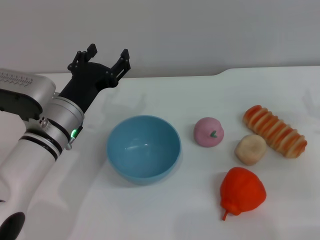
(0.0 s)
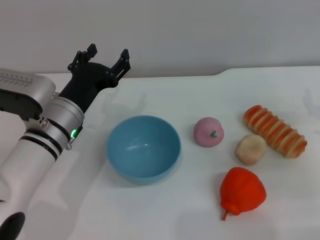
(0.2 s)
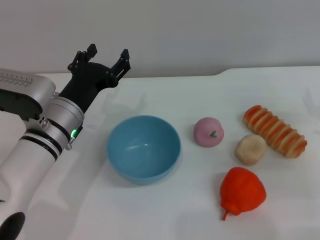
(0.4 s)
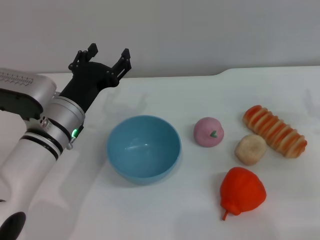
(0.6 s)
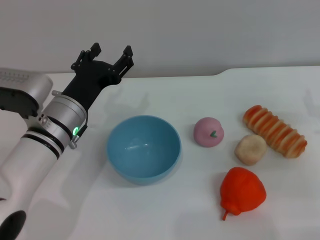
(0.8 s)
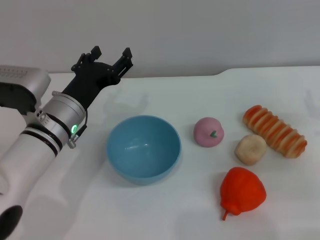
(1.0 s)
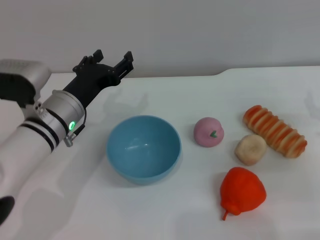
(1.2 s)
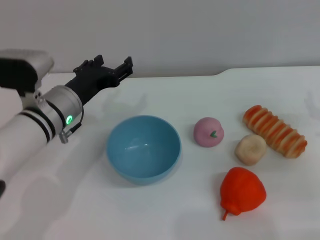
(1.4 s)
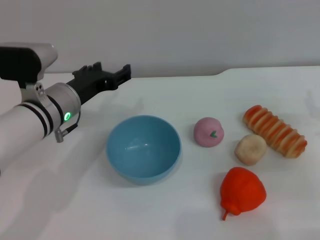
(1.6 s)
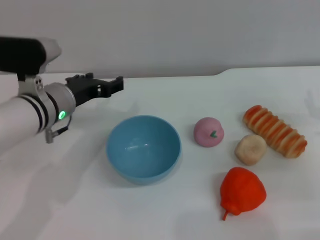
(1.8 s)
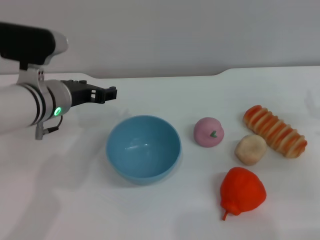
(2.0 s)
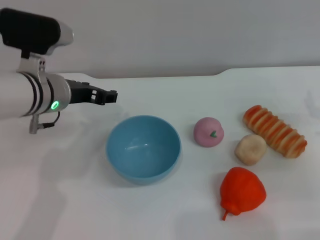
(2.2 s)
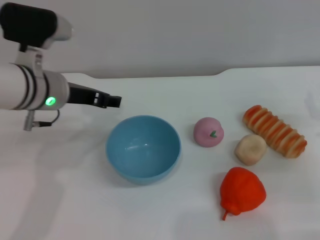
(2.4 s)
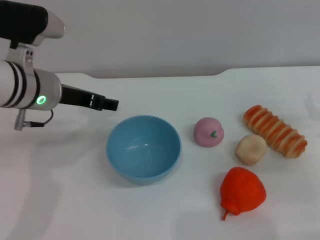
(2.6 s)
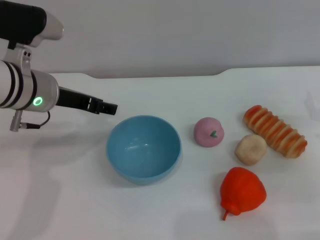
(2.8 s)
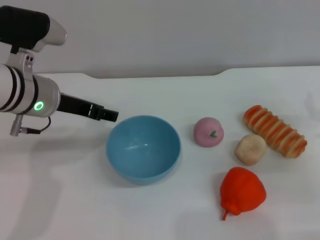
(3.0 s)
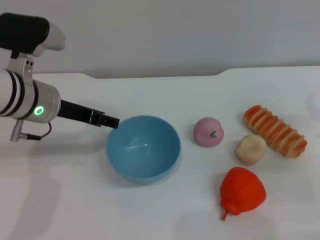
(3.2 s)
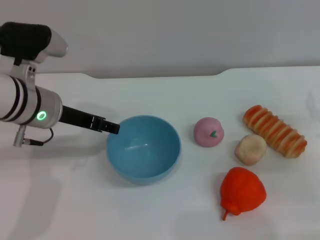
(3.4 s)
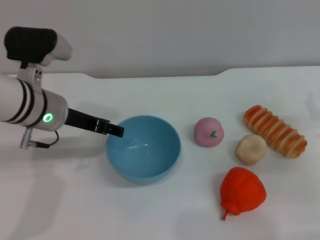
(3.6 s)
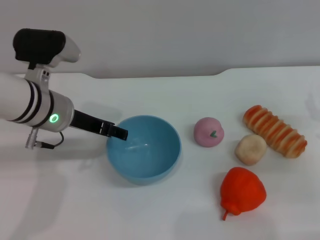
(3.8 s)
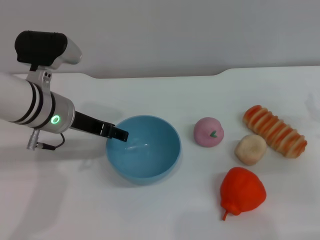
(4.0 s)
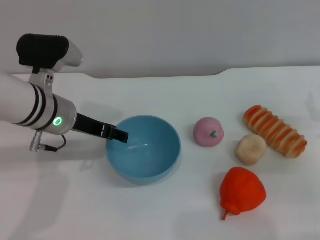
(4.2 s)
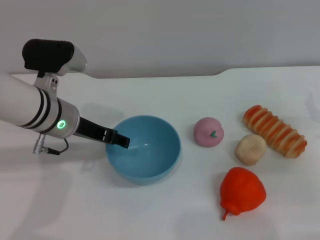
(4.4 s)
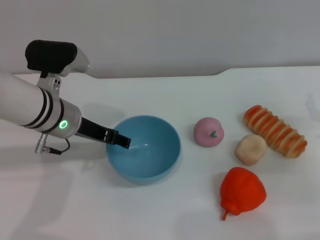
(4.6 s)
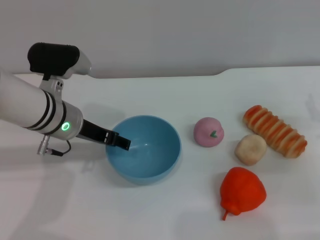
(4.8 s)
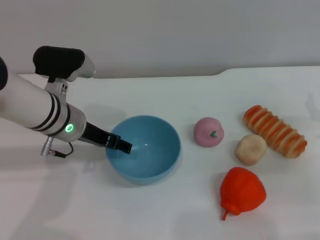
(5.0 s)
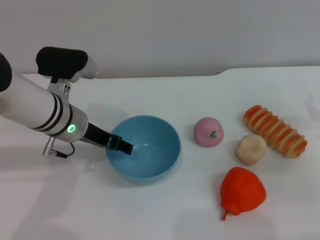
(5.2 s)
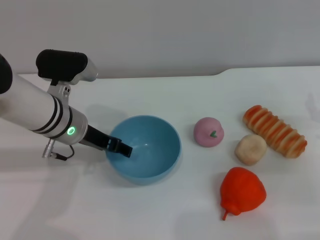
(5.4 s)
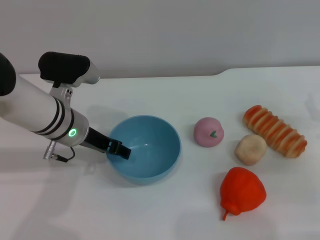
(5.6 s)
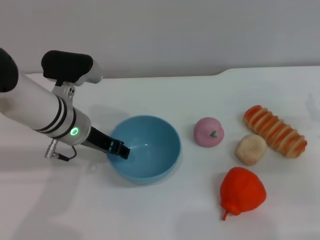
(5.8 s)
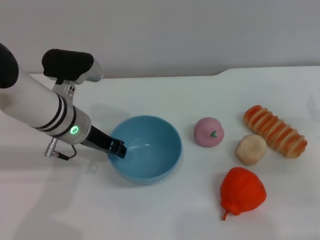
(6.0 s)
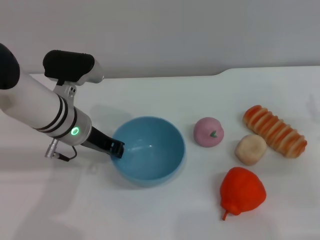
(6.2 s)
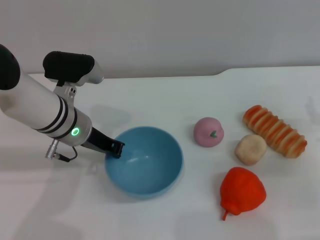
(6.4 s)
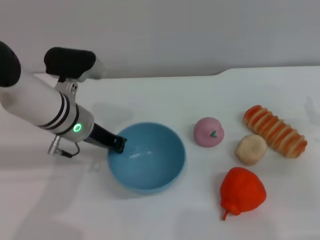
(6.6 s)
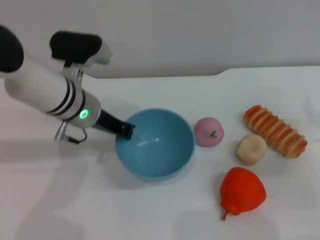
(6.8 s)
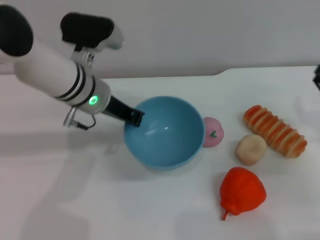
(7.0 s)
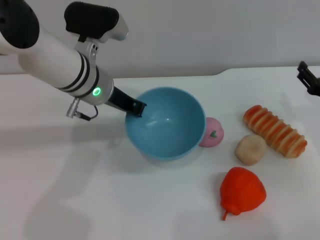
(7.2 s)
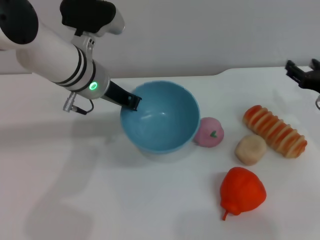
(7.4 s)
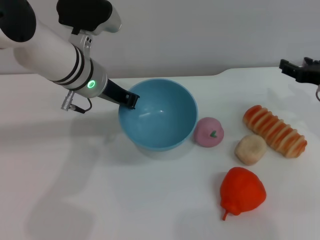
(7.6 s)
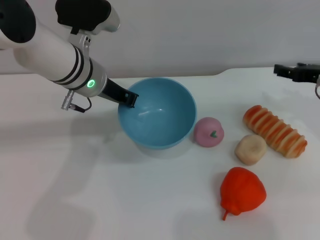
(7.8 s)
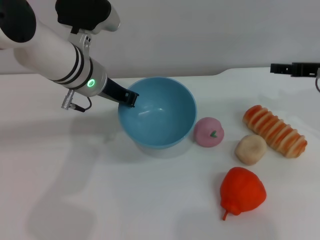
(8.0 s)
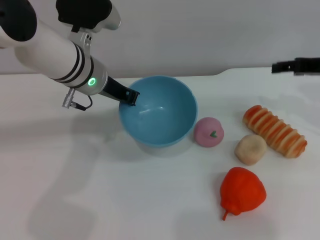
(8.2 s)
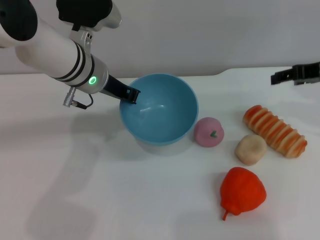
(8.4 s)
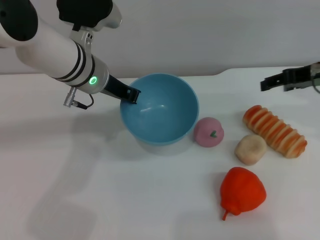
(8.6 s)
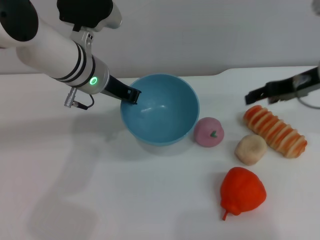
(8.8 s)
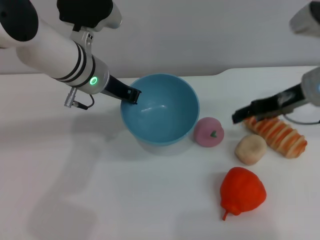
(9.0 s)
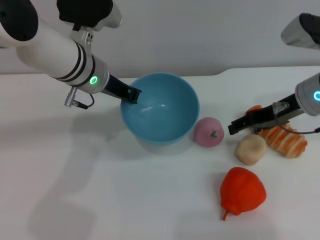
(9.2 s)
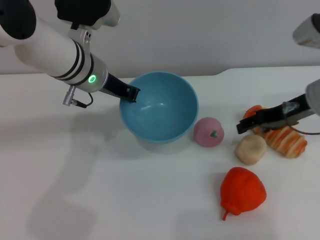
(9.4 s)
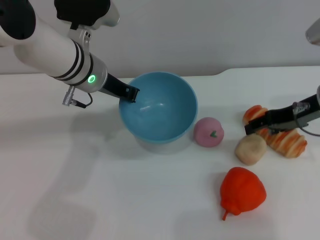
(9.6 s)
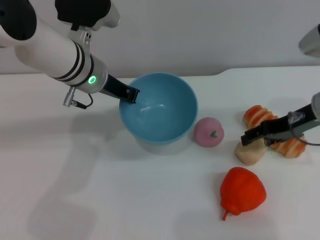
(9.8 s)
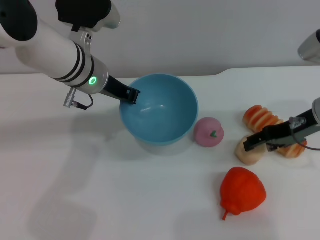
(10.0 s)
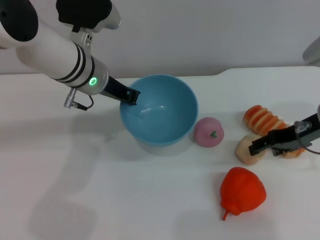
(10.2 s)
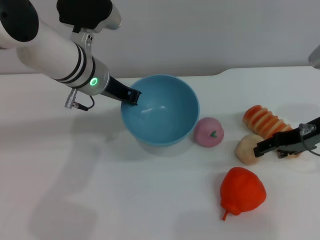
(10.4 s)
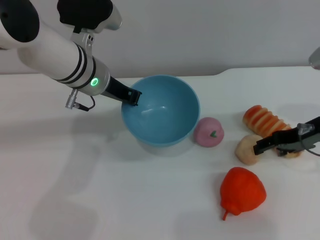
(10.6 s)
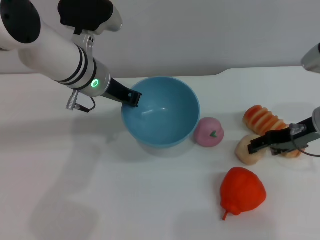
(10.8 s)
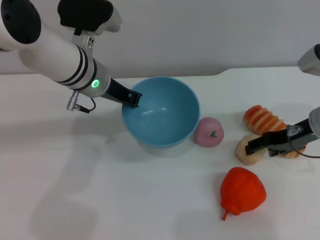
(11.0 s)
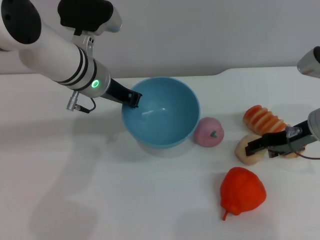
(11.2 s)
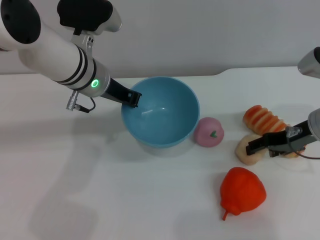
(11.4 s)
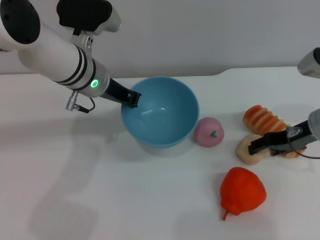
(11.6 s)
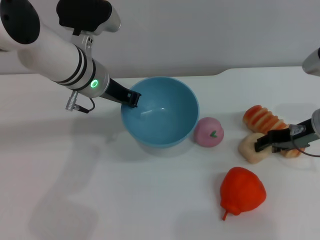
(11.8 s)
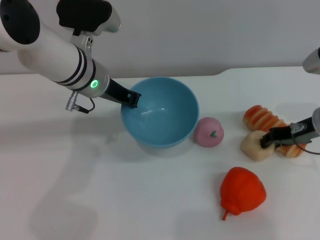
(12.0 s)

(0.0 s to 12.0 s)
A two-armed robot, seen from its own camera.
Task of the whole recording: put the egg yolk pastry into the blue bowl and pour it out repeatedly.
Step, 0.0 s - 7.0 s: Pick up the bowl with the left gripper.
1.6 s - 3.0 s: The left gripper moves upward, roughly 5 cm.
3.0 s - 4.4 s: The grippers stay close to where they were, moving slightly.
4.4 s - 6.0 s: The left gripper closes up.
6.0 s - 7.6 s: The left gripper goes roughly 5 cm upward, and closes. The right gripper moves forward and upward, roughly 10 cm.
7.6 s - 9.0 s: The right gripper moves to the left and upward, about 10 cm.
9.0 s - 10.4 s: The right gripper moves some 5 cm.
10.4 s - 12.0 s: The right gripper closes.

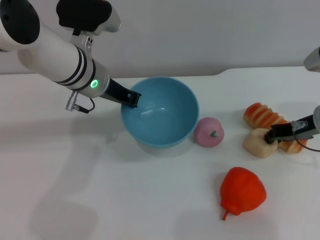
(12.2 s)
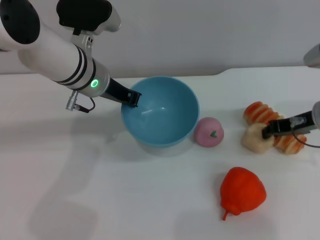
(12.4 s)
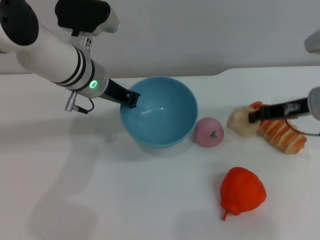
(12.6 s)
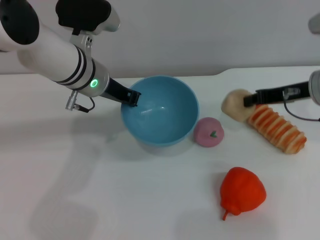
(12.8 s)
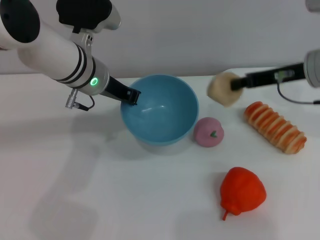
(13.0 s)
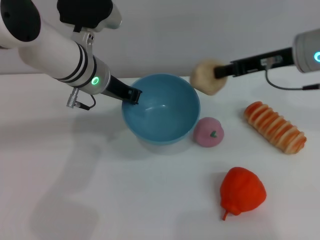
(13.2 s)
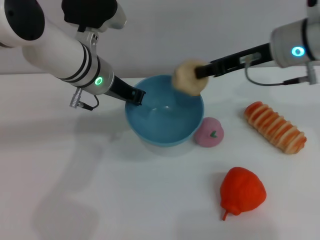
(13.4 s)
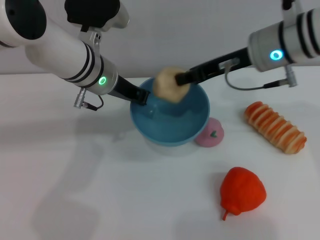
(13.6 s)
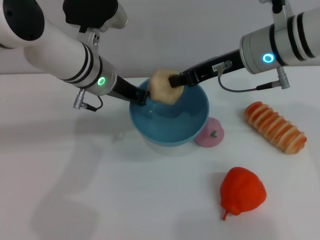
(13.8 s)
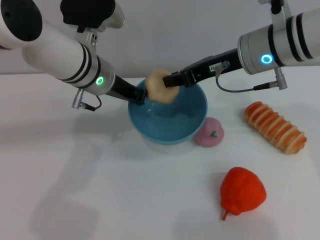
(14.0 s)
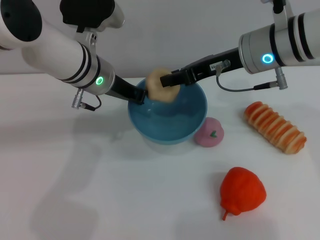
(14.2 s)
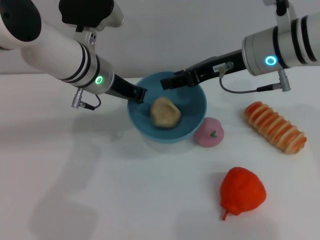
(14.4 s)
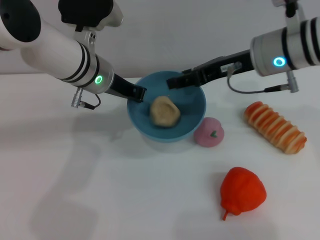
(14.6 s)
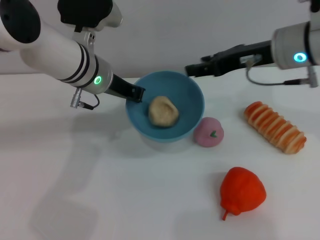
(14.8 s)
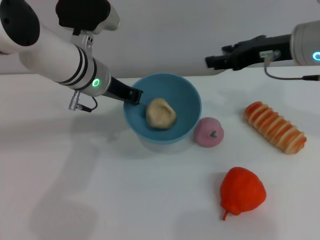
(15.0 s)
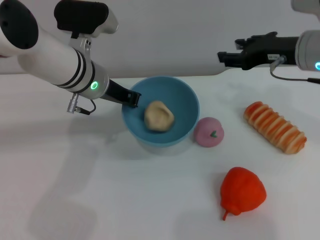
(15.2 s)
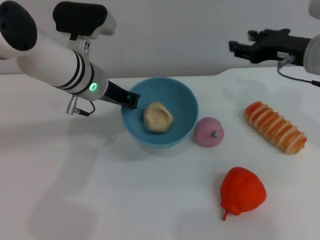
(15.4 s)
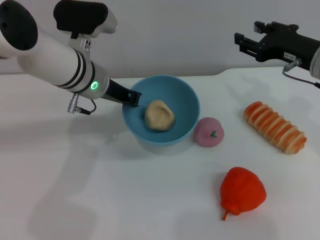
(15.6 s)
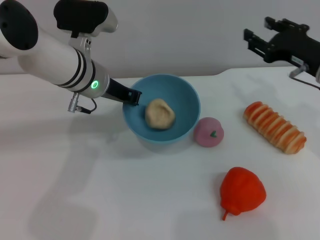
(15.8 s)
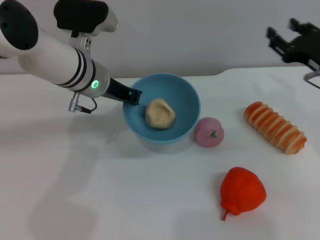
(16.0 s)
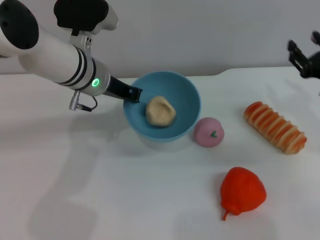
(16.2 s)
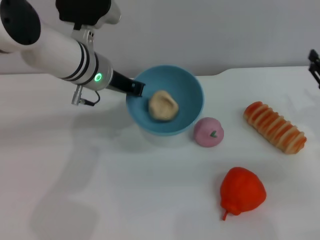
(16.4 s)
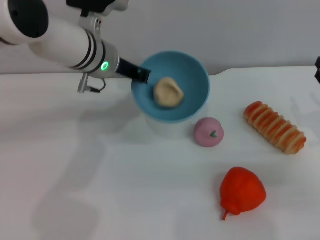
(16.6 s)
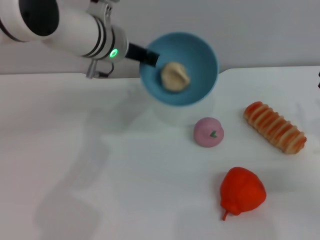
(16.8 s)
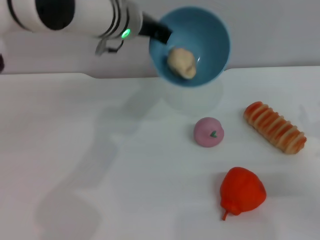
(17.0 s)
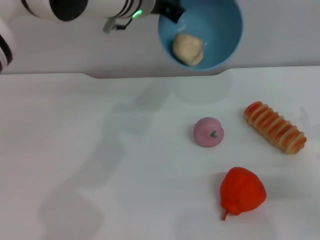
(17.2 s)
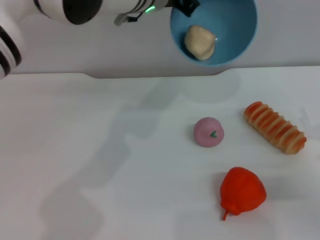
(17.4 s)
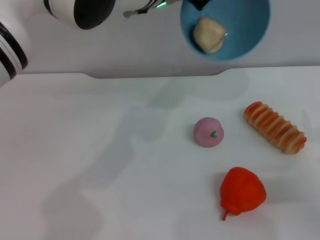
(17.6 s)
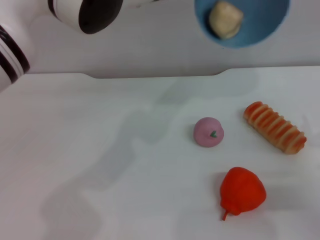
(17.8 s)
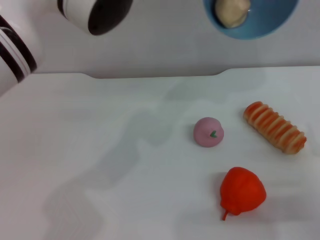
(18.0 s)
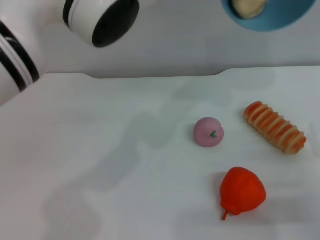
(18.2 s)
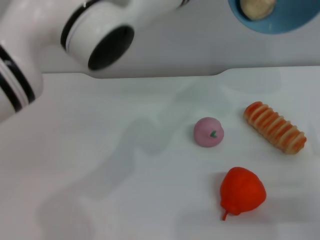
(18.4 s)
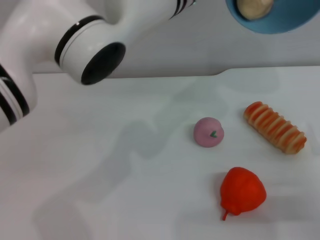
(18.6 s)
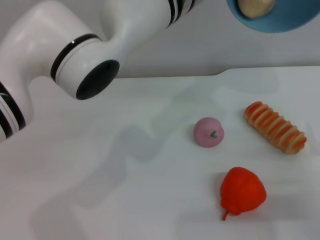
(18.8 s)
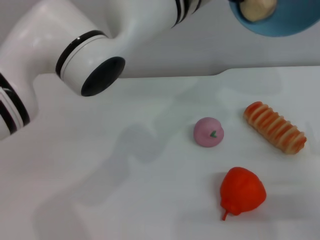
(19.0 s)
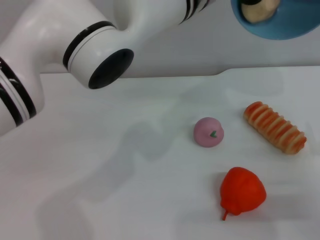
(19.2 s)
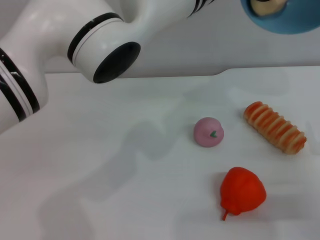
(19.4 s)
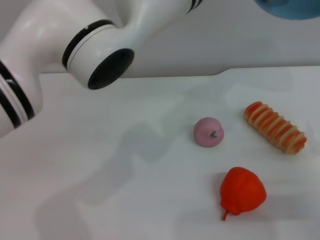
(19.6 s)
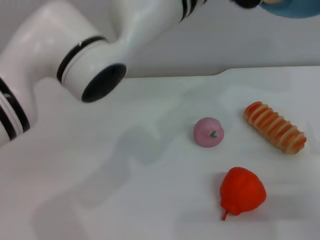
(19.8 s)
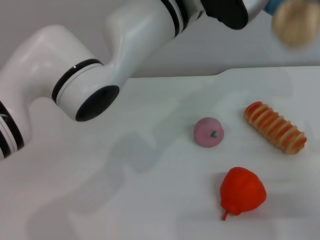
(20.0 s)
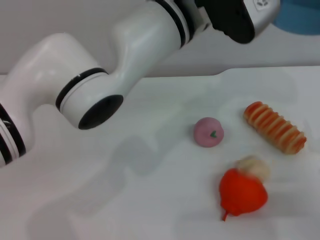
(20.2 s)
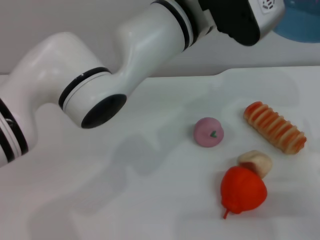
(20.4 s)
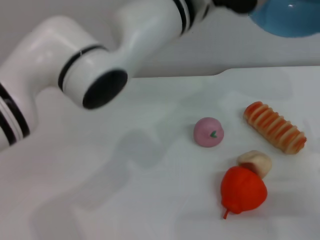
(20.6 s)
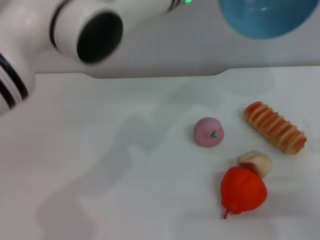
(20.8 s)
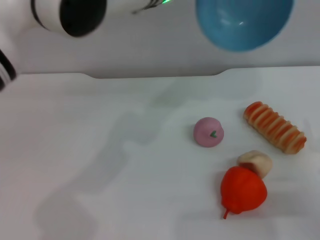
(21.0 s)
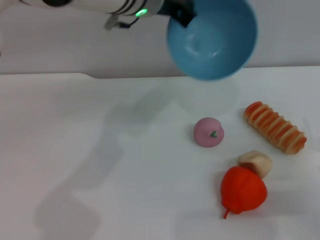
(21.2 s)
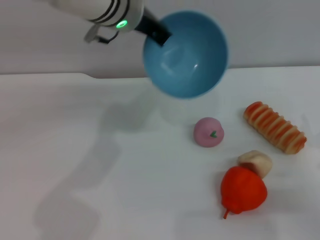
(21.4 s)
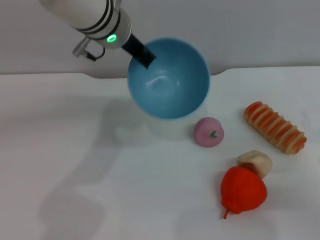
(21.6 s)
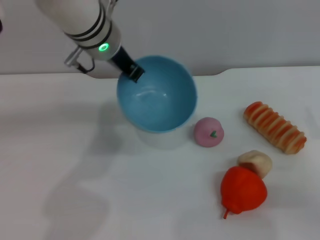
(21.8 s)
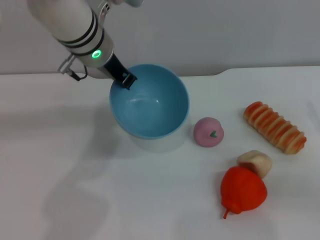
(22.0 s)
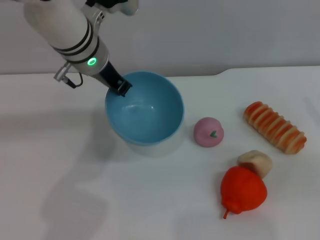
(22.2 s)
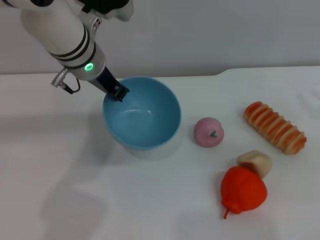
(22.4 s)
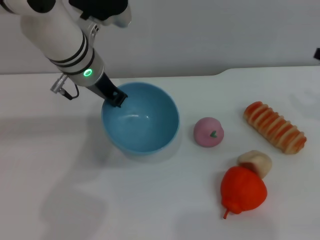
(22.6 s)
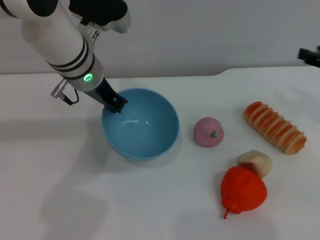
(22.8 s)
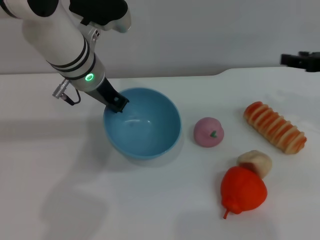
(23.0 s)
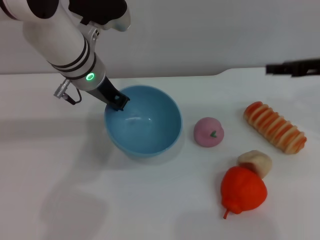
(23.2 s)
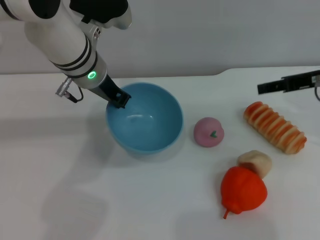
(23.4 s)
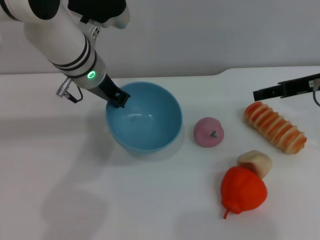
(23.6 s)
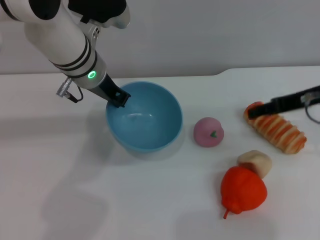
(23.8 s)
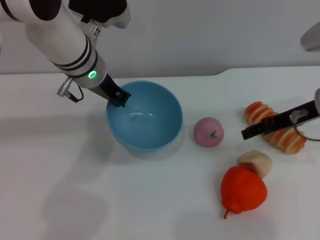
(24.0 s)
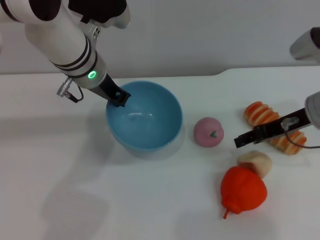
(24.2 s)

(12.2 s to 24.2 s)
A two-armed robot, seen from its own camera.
Task of the whole recording: put the egg yolk pastry into the blue bowl and pour it out repeatedly.
Step, 12.8 s - 14.8 s: Place the egg yolk pastry into the bowl.
Step, 15.0 s - 20.4 s: Pour the egg yolk pastry out of bowl.
12.2 s - 13.8 s: The right gripper heads to the left and upward, covering approximately 15 cm, and closes up.
13.8 s - 15.2 s: The right gripper heads to the right, covering roughly 10 cm, and opens up.
15.2 s - 16.6 s: The right gripper is displaced downward, to the right and backward by some 20 cm.
16.6 s - 18.2 s: The right gripper travels backward by about 5 cm; the left gripper shifts approximately 15 cm to the right and upward.
19.8 s - 21.2 s: The left gripper travels to the left by roughly 5 cm.
21.2 s - 22.6 s: The left gripper moves downward and to the left, about 10 cm, while the right gripper heads upward and forward, covering some 15 cm.
22.6 s - 24.2 s: The right gripper is displaced to the left by some 15 cm.
